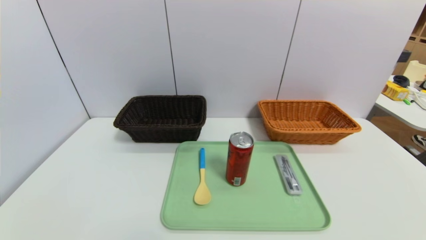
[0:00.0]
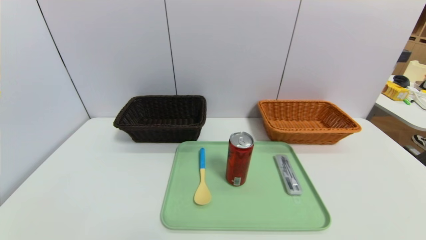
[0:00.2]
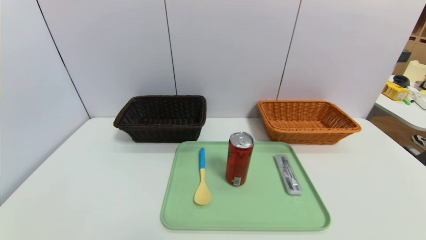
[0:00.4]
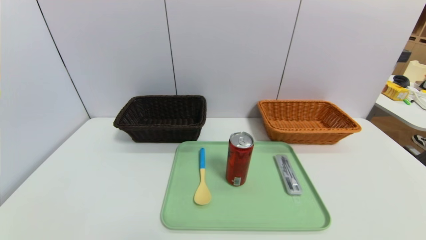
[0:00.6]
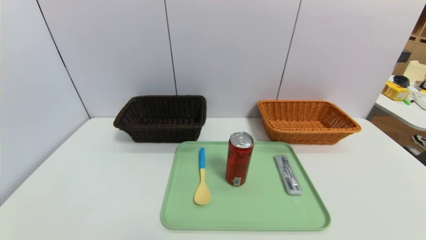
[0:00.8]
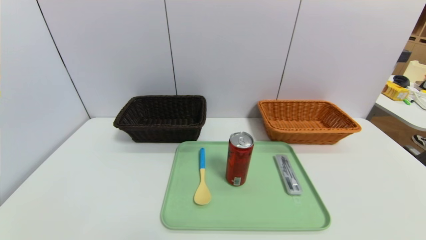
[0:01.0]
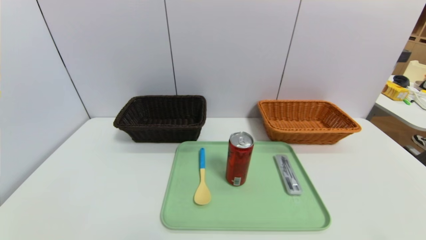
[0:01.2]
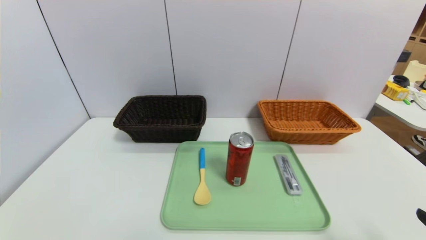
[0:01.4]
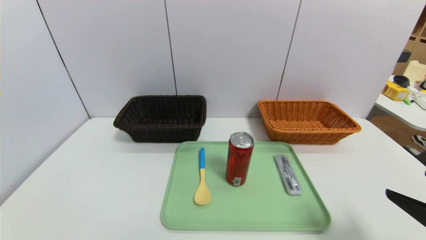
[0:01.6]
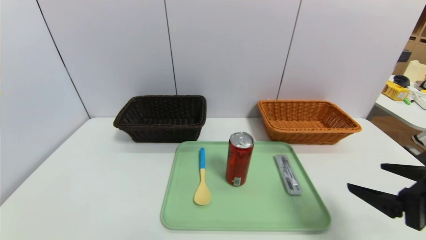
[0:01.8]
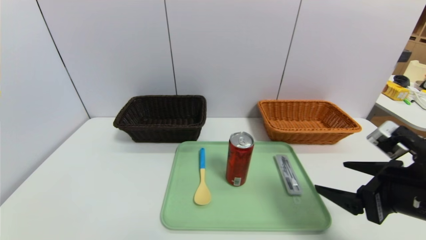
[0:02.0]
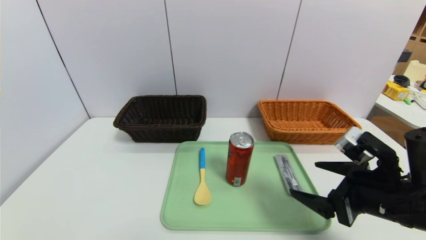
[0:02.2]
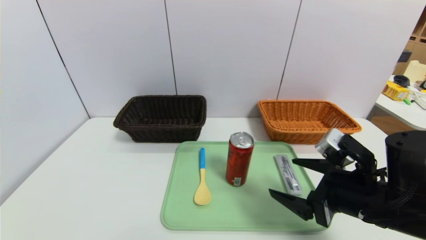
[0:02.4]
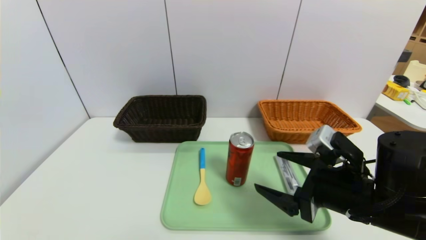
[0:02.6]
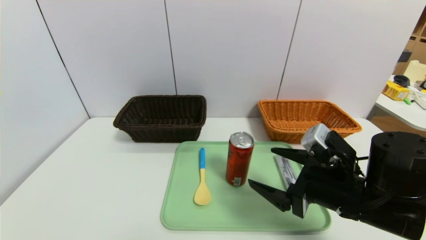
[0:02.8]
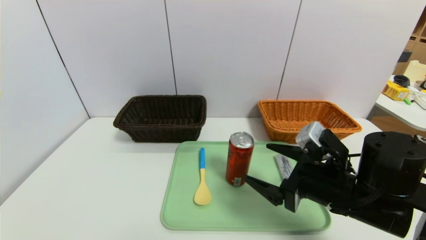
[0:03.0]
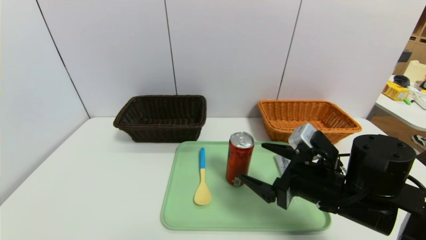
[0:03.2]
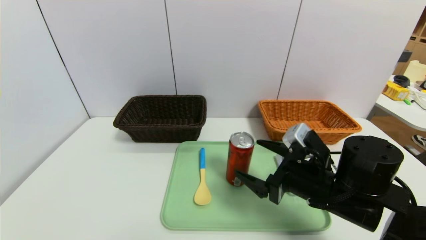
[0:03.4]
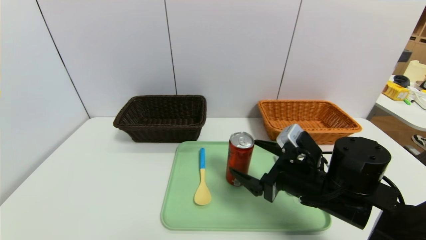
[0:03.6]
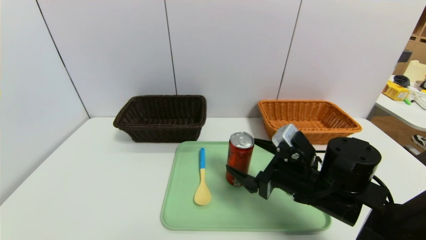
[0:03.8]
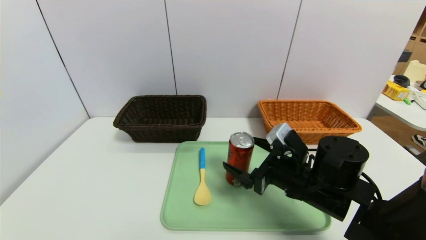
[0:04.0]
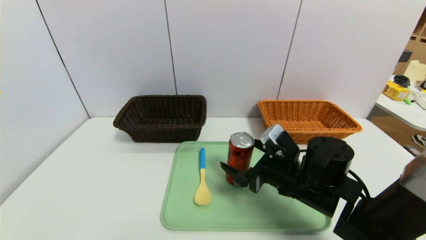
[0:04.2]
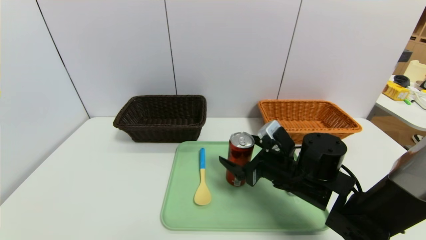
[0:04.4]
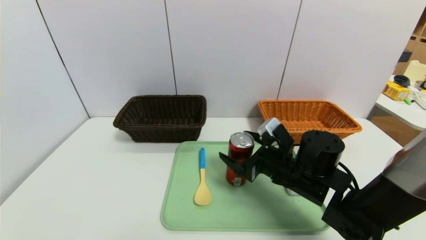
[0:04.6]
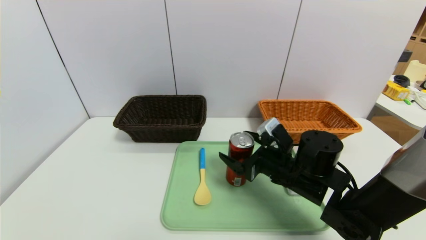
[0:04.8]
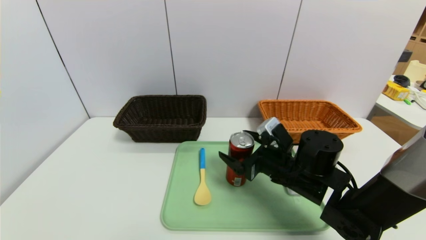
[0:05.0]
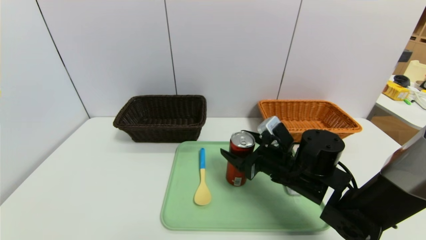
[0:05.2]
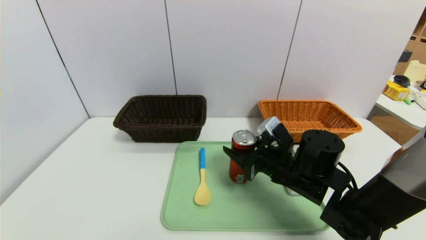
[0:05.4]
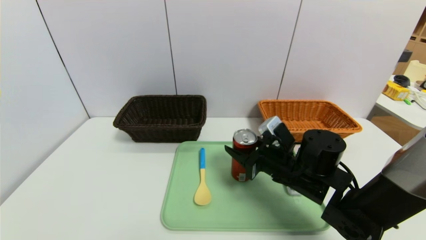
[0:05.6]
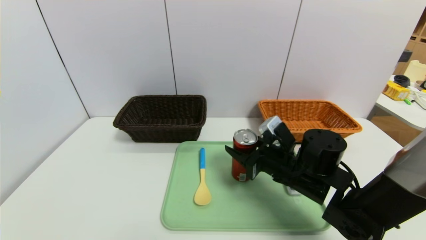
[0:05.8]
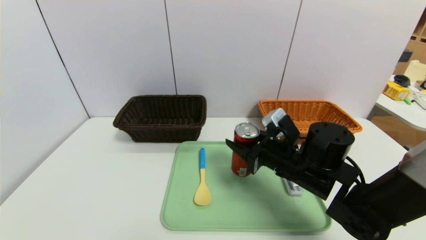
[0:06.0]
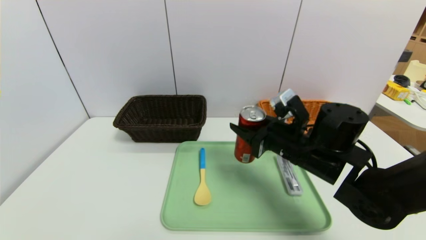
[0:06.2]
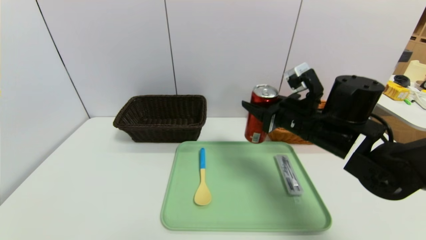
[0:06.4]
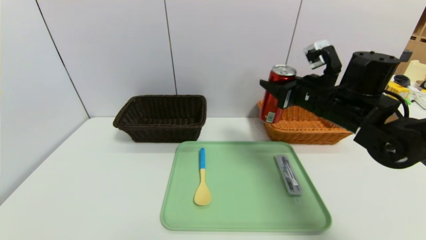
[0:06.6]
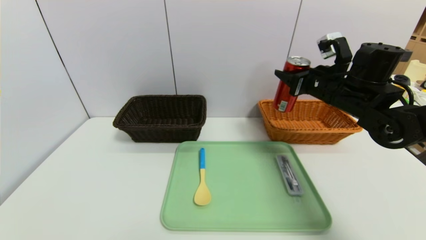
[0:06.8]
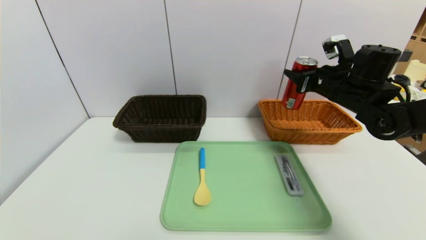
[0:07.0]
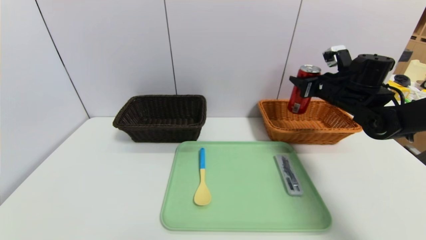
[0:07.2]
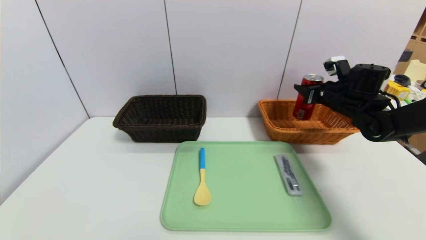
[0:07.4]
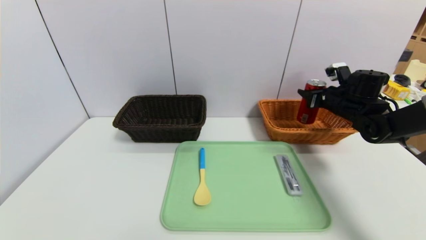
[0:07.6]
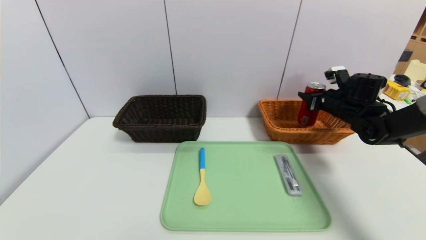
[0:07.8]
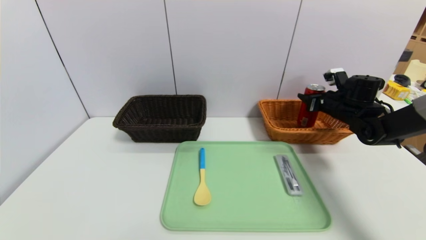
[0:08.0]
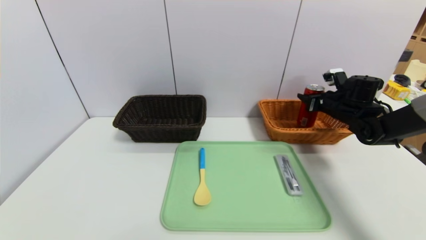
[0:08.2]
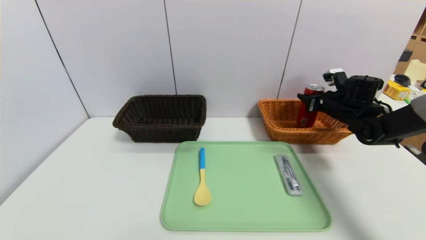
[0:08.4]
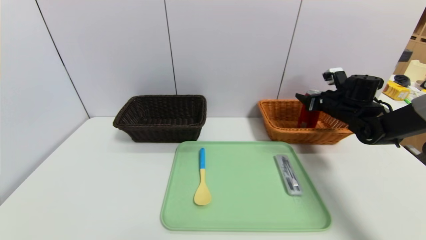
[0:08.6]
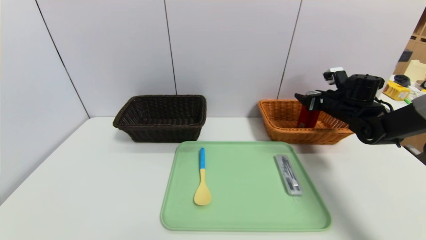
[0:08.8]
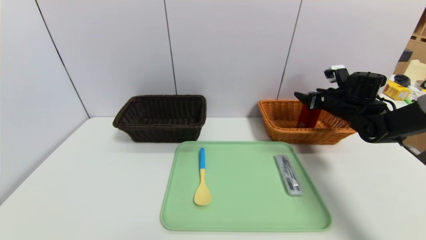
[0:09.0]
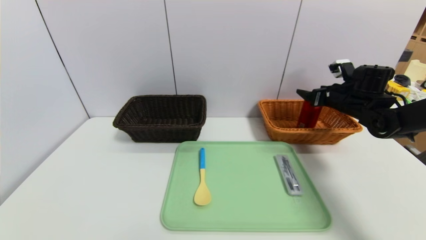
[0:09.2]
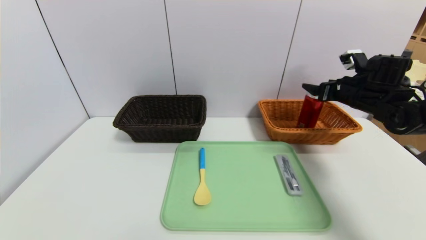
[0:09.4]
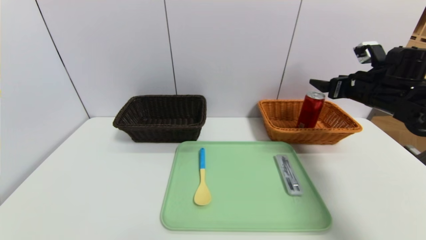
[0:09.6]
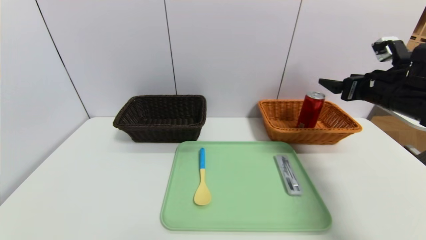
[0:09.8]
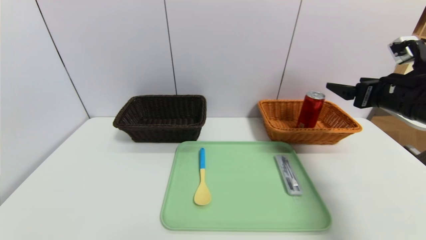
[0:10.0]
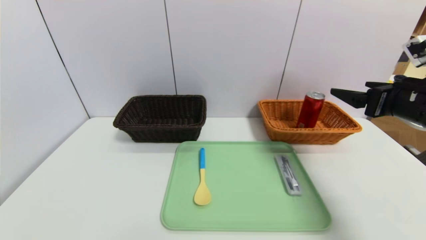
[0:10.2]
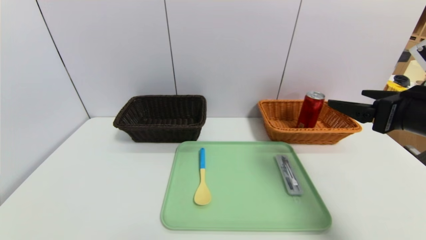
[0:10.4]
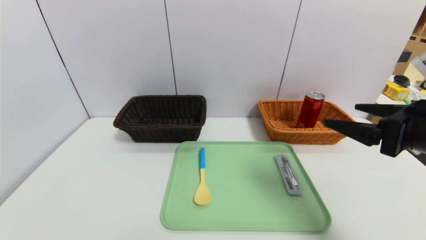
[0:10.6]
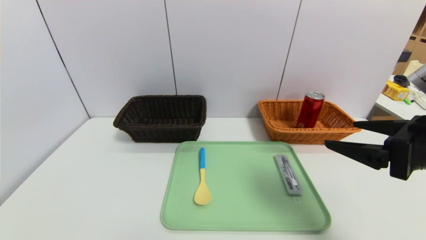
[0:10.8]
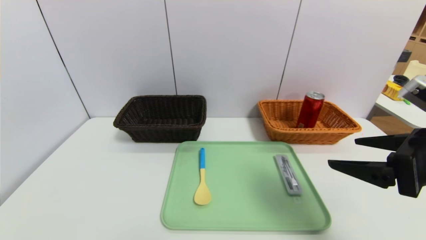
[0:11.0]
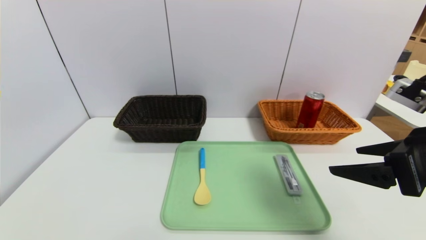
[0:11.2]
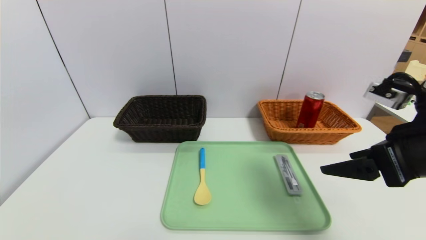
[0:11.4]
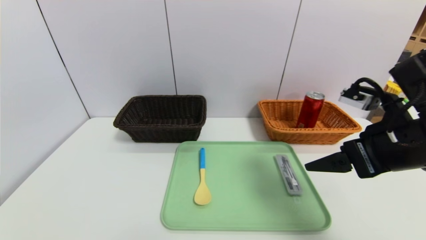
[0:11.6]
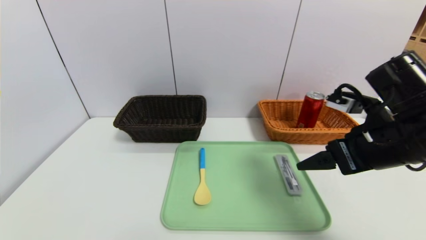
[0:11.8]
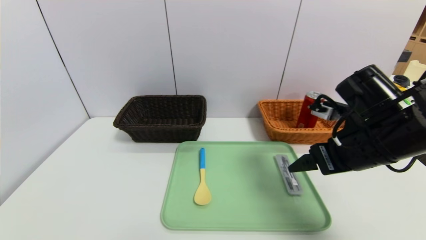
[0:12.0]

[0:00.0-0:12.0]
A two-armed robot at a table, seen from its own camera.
Task of the whole recording: place the food in the right basket with the right gripper, and place the non food items in the left basket with the left gripper.
Step, 0:00.0 to 0:09.0: Grasp the coke and put it in the right basket.
0:00.0 to 0:01.6: The right gripper travels upward and forward by about 15 cm.
0:01.6 to 0:03.0: The right gripper moves to the left and forward, approximately 20 cm.
0:03.0 to 0:04.4: The right gripper moves forward, roughly 5 cm.
0:04.4 to 0:06.0: The right gripper closes.
0:06.0 to 0:07.6: The right gripper shifts roughly 25 cm to the right and forward.
0:07.6 to 0:09.0: The right gripper opens its fingers.
0:09.0 to 0:10.4: The right gripper is displaced backward and upward by approximately 25 cm.
0:10.4 to 0:12.0: The right gripper goes approximately 10 cm to the left.

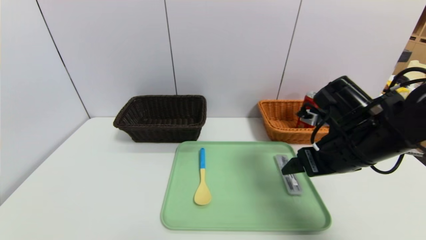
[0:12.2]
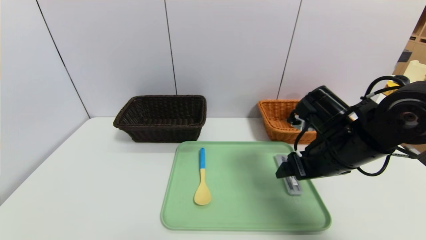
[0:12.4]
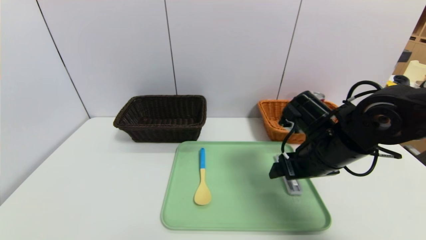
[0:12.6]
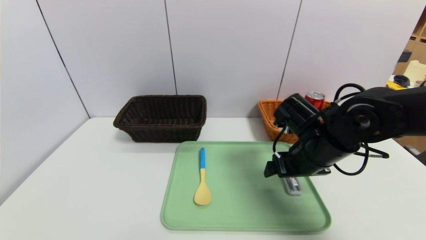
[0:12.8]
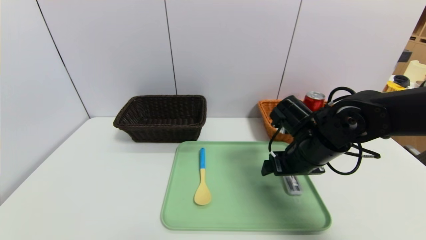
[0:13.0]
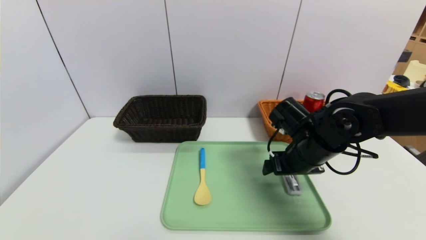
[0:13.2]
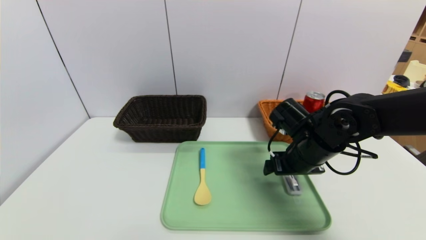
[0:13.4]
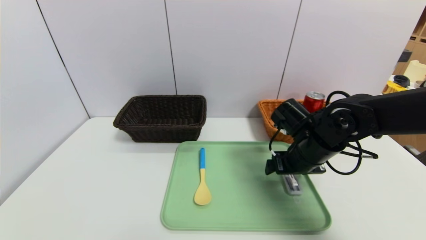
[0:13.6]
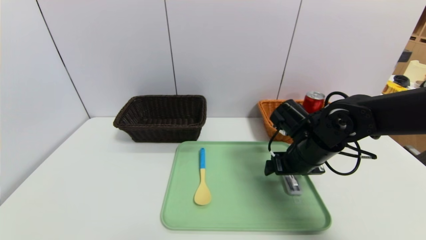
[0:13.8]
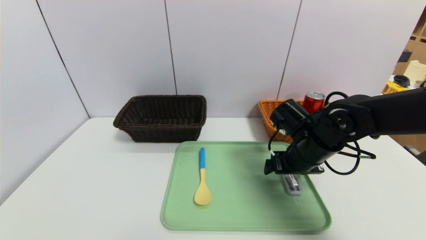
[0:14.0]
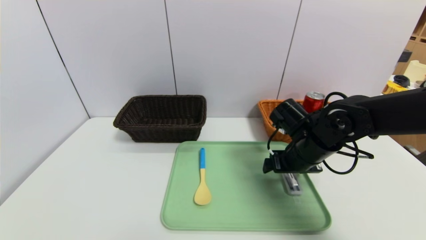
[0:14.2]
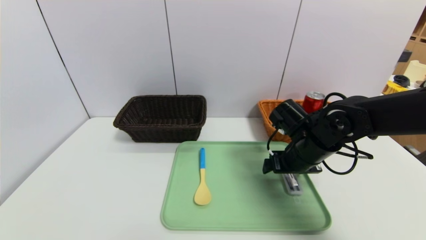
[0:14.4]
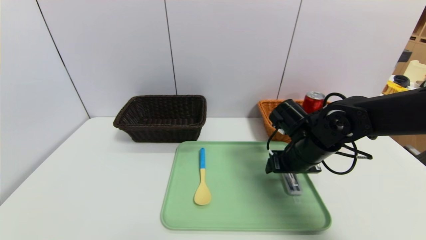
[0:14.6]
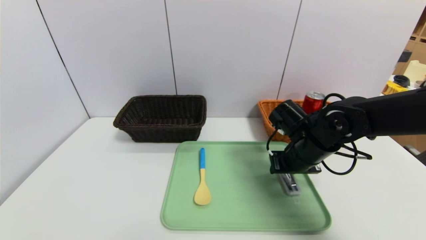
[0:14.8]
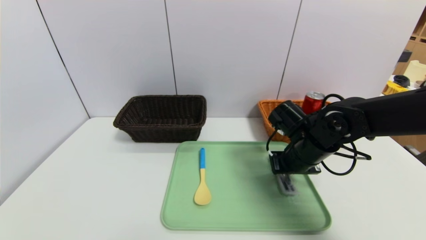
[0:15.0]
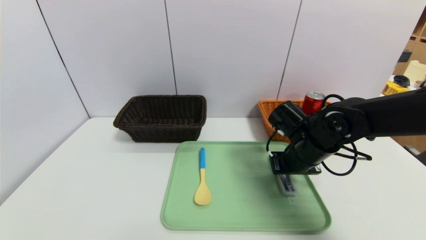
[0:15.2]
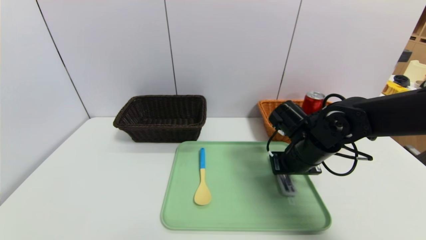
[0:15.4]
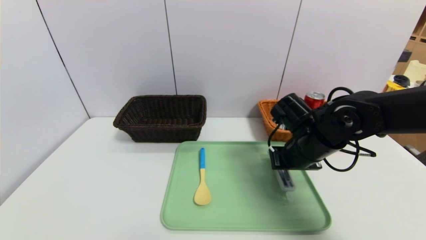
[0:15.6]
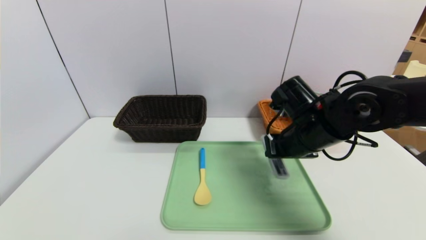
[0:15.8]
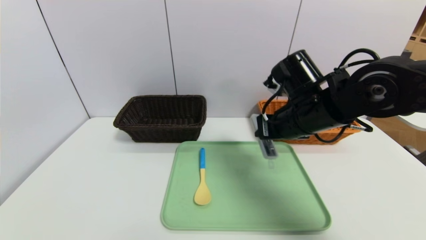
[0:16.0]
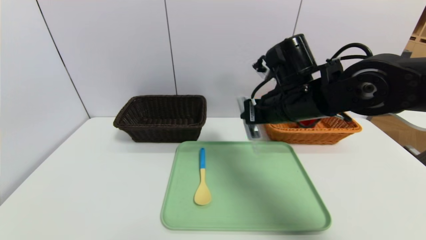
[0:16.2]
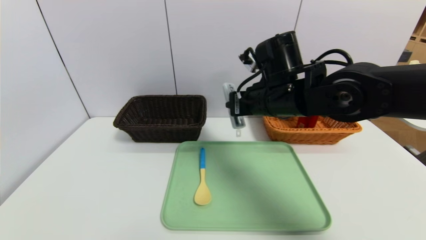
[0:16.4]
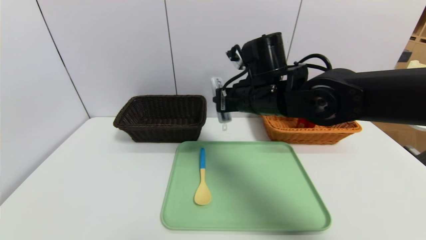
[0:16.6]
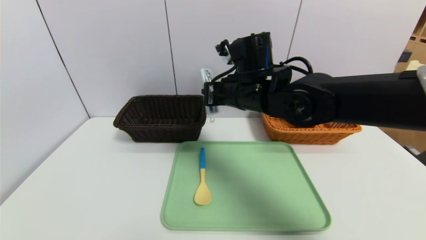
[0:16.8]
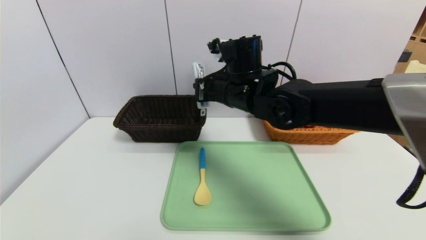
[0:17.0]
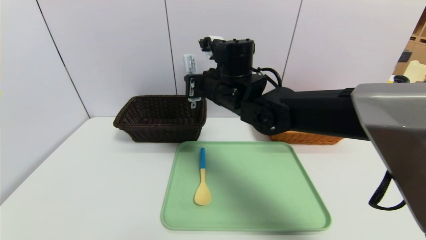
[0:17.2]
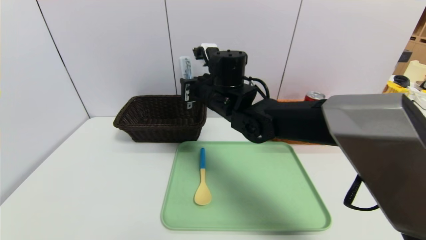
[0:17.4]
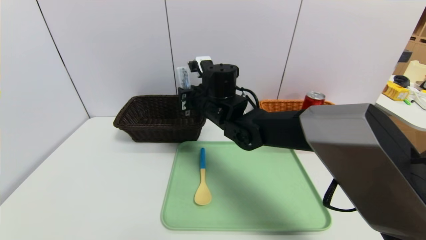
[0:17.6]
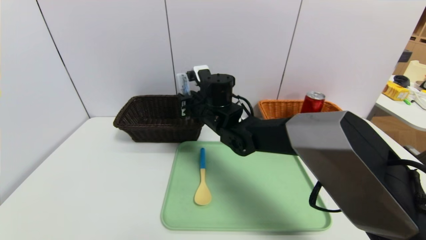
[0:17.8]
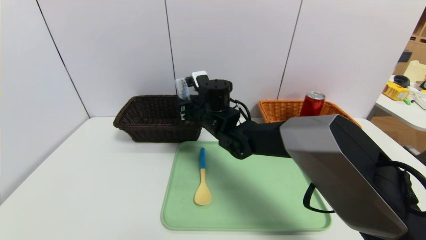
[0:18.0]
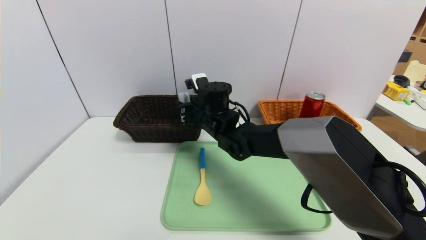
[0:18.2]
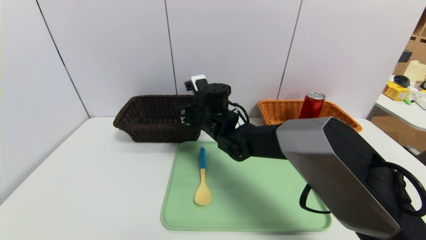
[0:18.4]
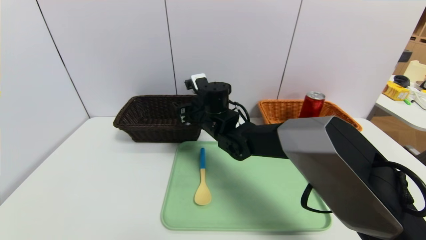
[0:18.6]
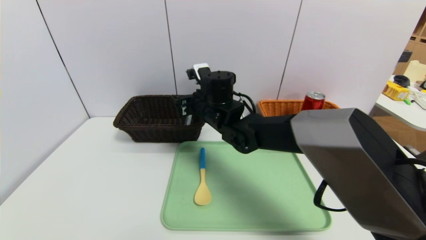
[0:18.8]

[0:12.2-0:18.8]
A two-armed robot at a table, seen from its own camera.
Task of the whole recording: place the food in the right basket with the right gripper, and place the non food items in the left basket with the left gripper.
0:12.2 to 0:13.8: The right gripper goes about 10 cm downward and forward.
0:13.8 to 0:15.4: The right gripper closes up.
0:15.4 to 0:17.2: The right gripper shifts roughly 20 cm to the left and upward.
0:17.2 to 0:18.8: The right gripper opens up.
